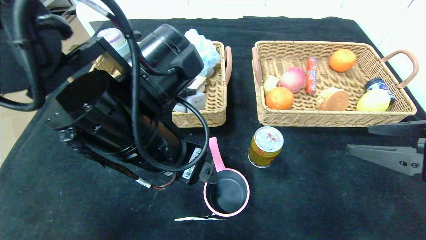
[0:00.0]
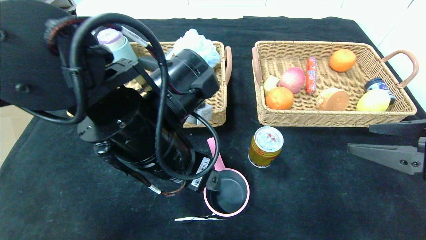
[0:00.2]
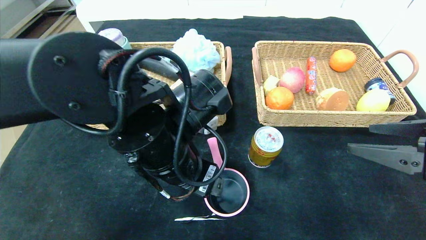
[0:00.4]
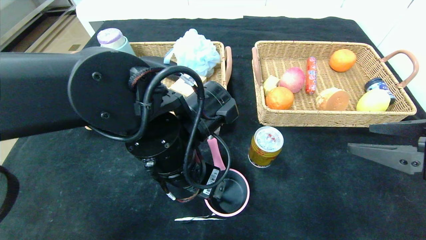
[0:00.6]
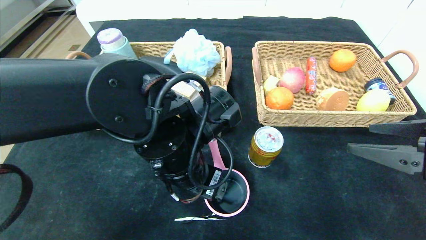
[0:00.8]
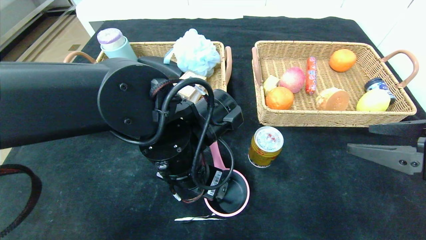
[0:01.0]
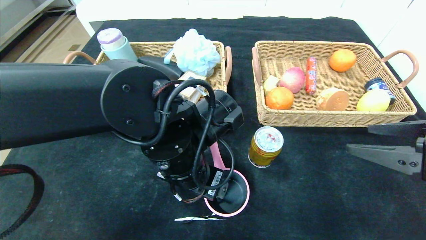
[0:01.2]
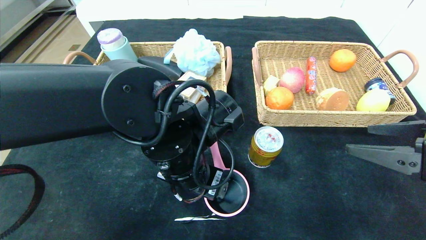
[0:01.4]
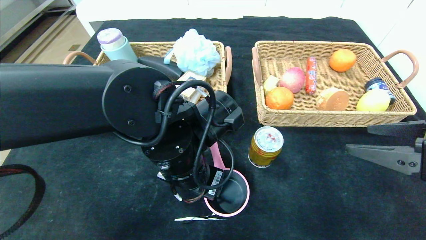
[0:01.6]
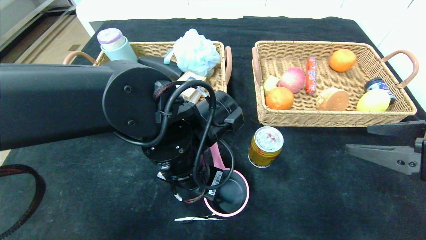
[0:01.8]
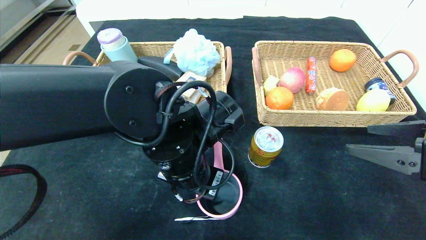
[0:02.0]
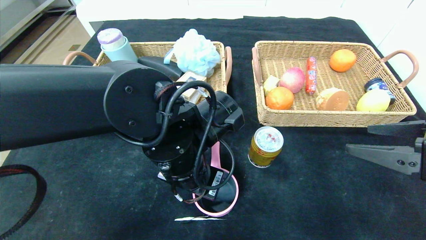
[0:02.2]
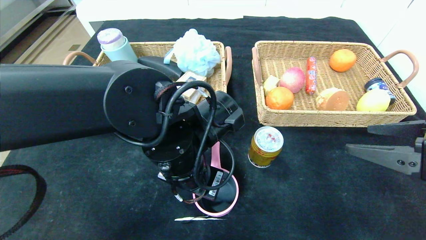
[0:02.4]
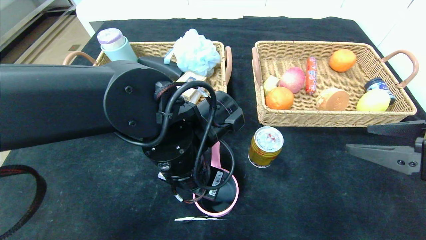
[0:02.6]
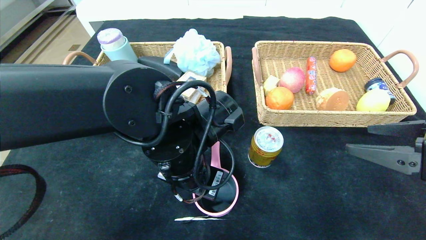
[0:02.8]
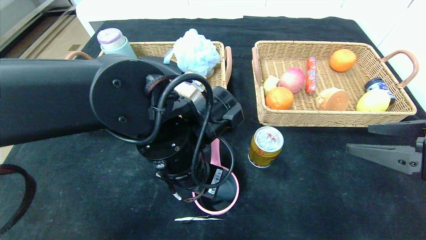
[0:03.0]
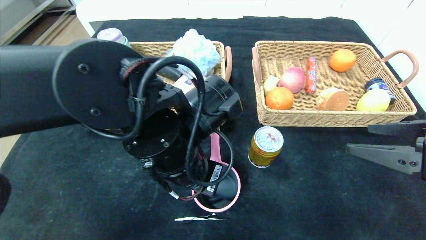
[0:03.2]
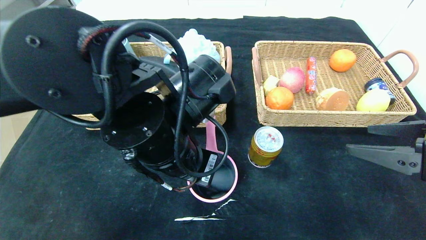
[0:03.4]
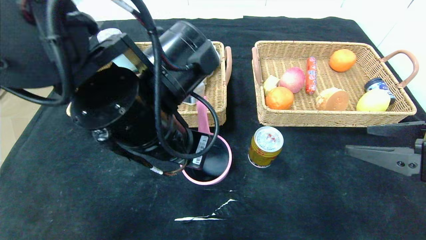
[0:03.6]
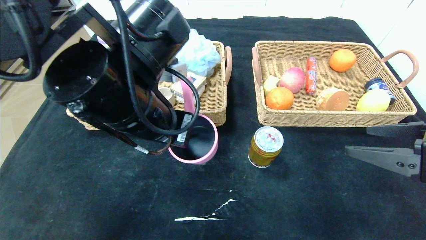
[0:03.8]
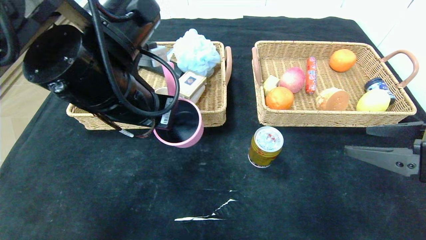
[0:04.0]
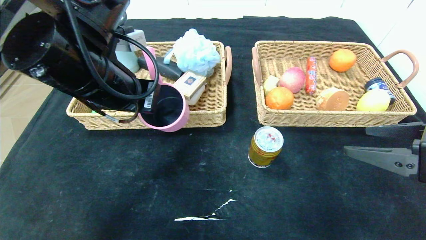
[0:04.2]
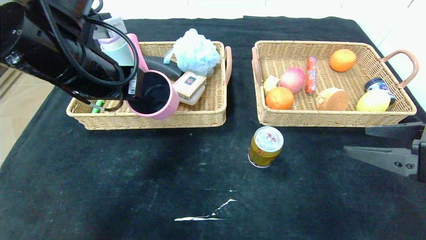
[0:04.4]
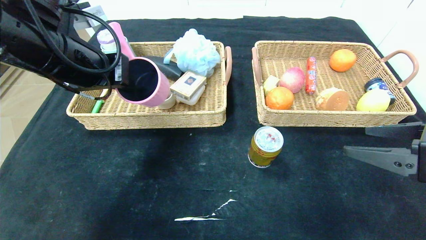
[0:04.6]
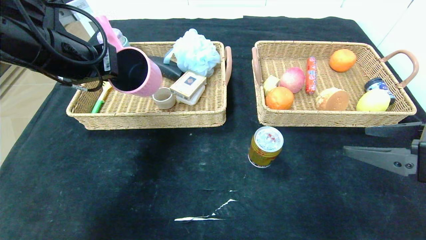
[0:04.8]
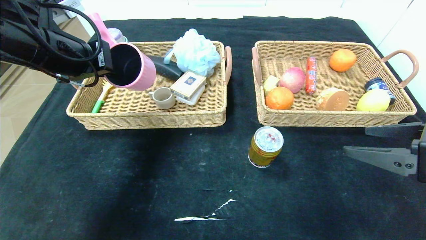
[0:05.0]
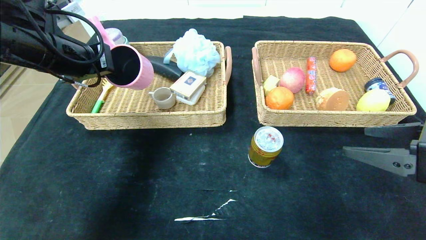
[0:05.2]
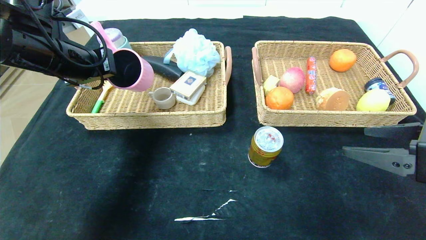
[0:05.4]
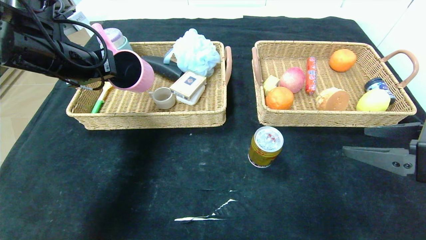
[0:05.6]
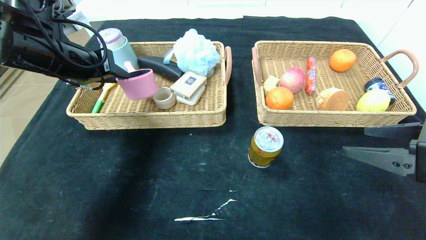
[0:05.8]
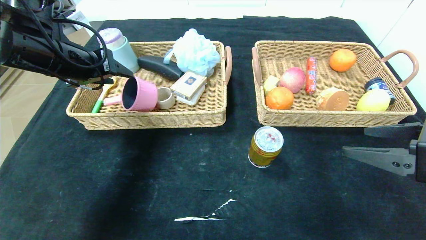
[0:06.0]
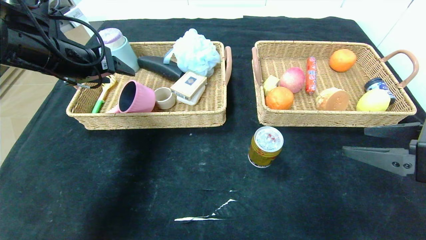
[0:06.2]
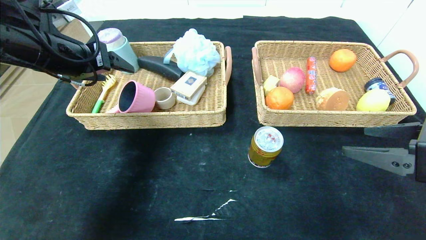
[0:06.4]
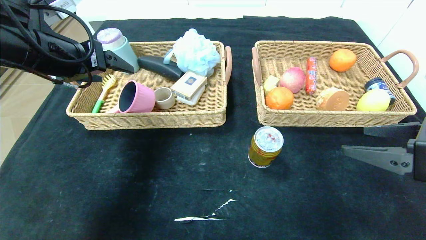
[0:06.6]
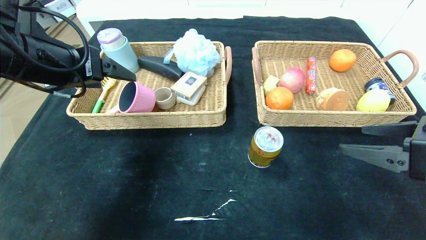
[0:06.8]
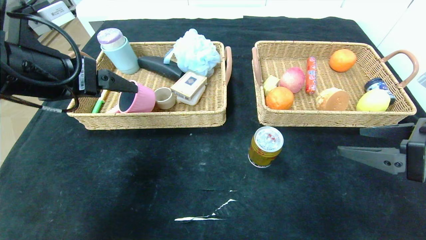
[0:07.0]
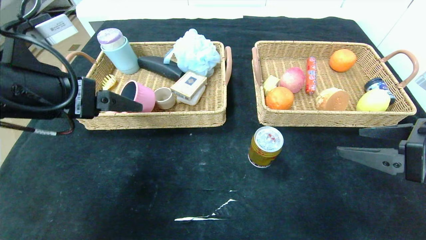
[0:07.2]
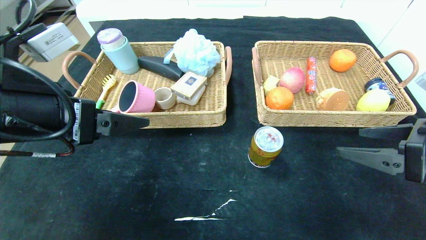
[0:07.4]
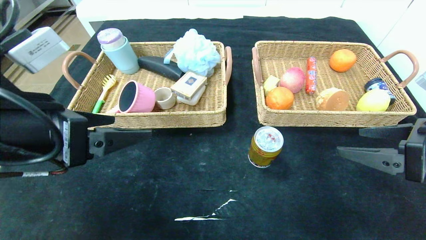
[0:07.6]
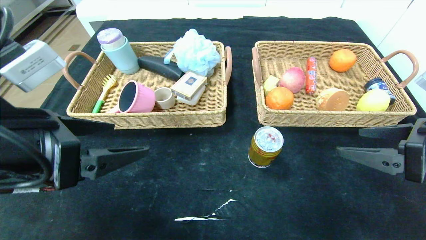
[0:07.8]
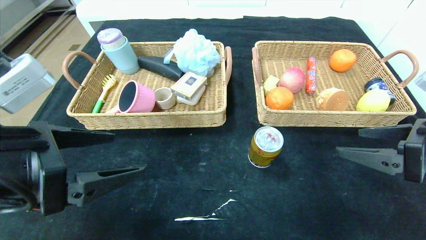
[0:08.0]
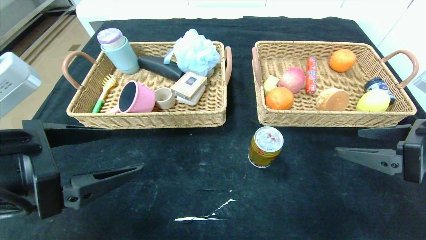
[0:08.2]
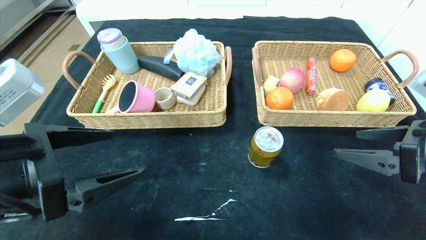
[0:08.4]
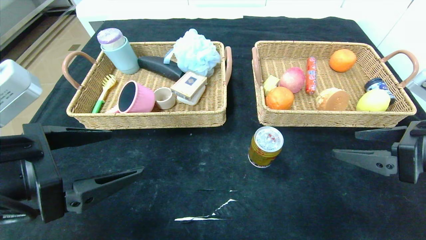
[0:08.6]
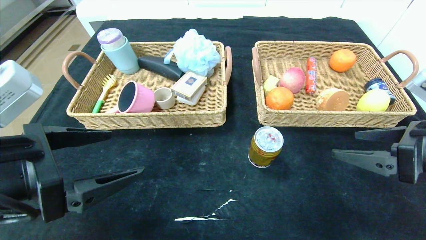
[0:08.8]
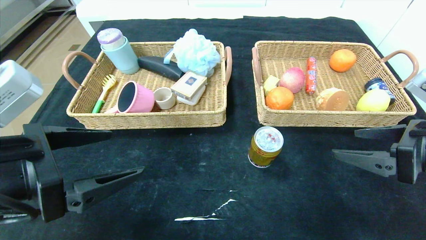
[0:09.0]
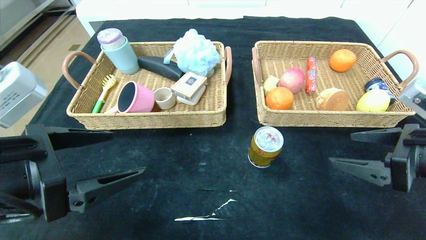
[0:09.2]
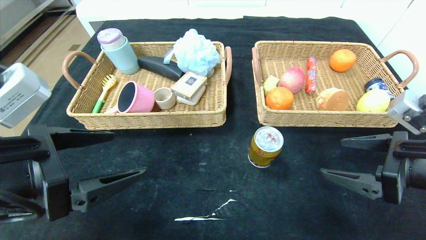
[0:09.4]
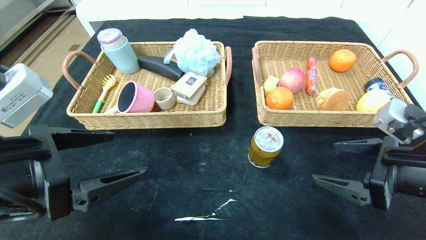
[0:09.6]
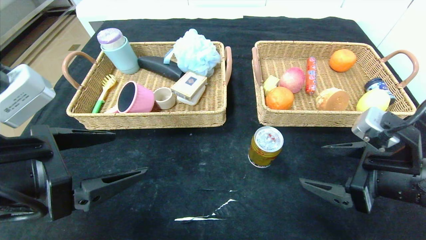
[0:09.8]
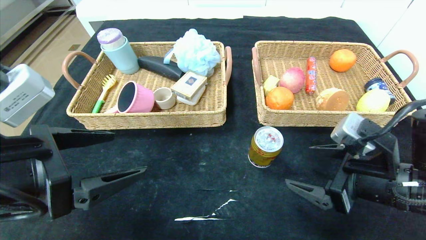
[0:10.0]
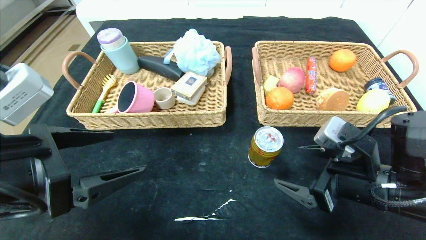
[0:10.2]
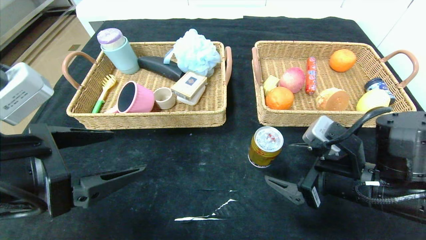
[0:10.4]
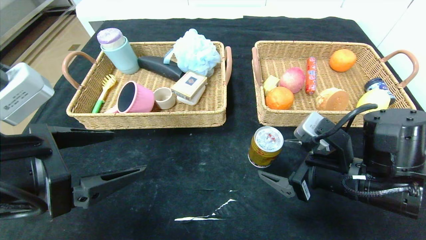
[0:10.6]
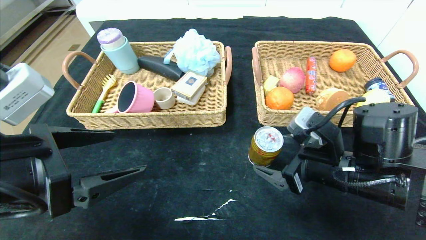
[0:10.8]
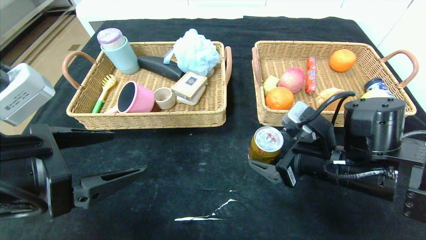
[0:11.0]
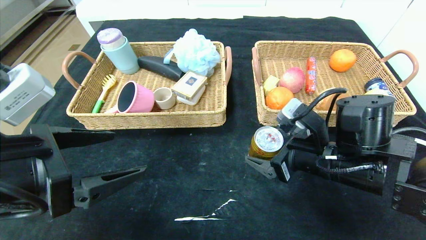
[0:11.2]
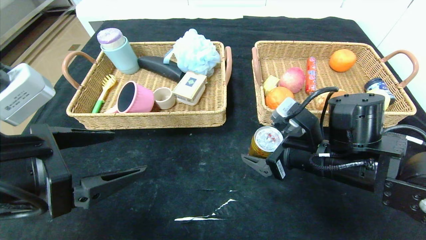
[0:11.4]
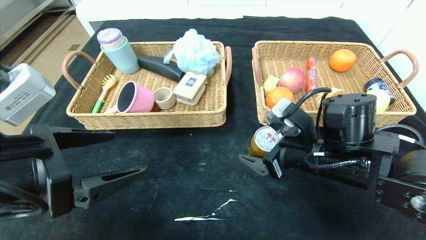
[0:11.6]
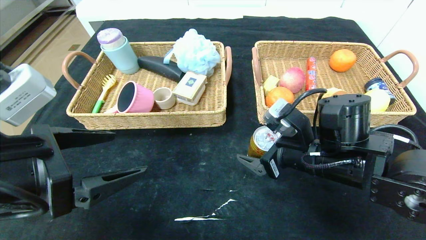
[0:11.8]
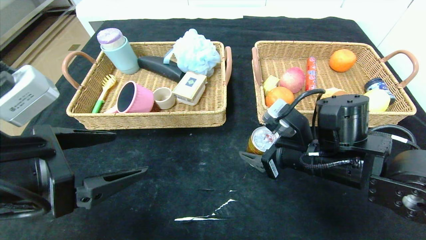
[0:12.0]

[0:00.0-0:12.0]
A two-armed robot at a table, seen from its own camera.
Step, 0:00.0 to 0:06.0: Grasp the pink pot and put it in the left basket.
0:00.0 to 0:01.6: The left gripper travels downward by roughly 5 cm.
0:01.6 to 0:03.0: The left gripper closes.
0:03.0 to 0:04.4: The left gripper is displaced to the left and upward by about 15 cm.
0:04.4 to 0:06.0: The left gripper is displaced to the left and forward by about 10 cm, and opens.
0:06.0 to 0:07.6: The left gripper is displaced backward by approximately 15 cm, and opens up.
0:07.6 to 0:09.0: The grippers stay close to where they were, moving slightly.
0:09.0 to 0:10.4: The right gripper travels to the left and downward by about 10 cm.
0:10.4 to 0:12.0: The right gripper goes roughly 5 cm forward.

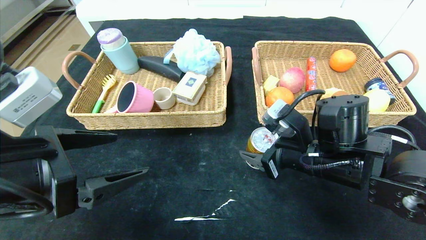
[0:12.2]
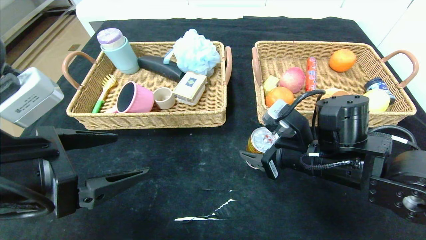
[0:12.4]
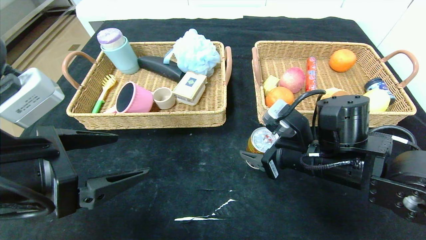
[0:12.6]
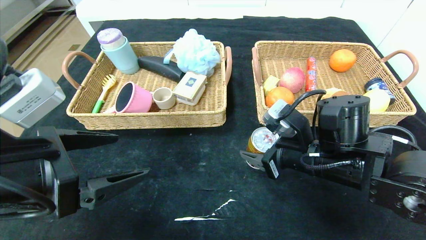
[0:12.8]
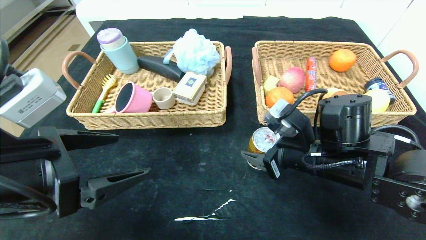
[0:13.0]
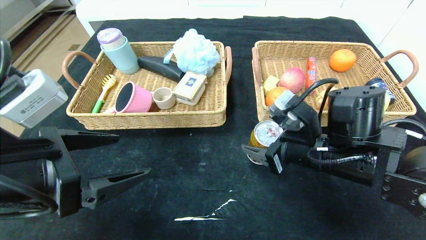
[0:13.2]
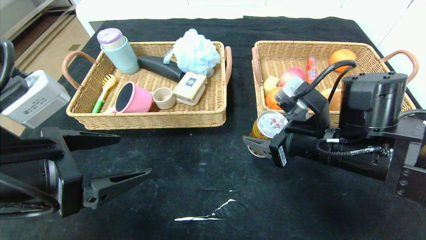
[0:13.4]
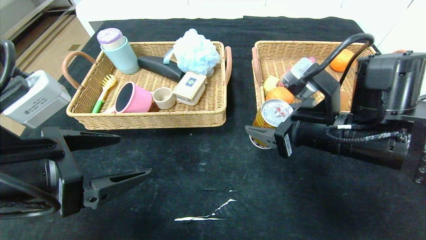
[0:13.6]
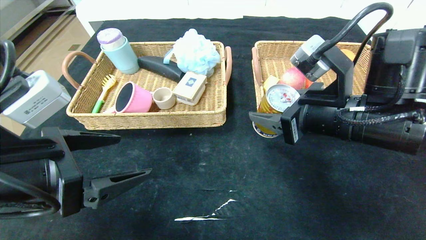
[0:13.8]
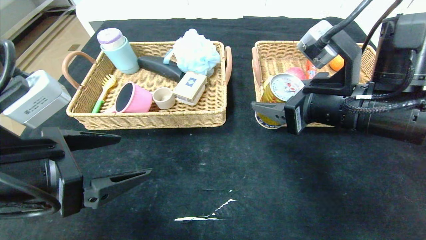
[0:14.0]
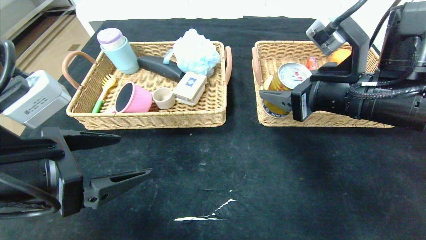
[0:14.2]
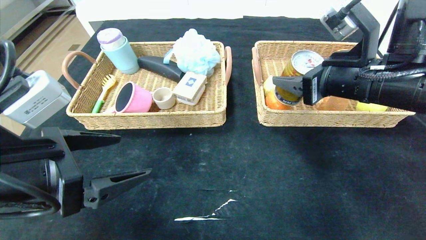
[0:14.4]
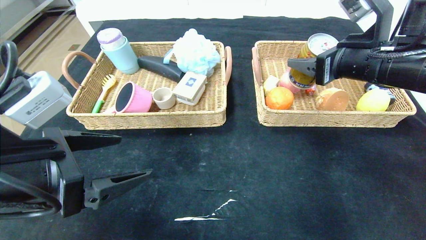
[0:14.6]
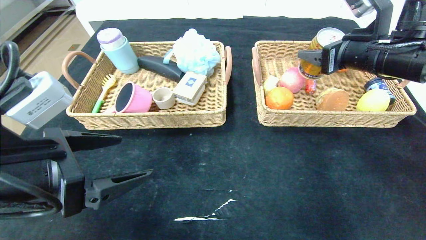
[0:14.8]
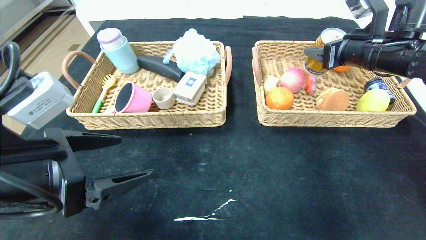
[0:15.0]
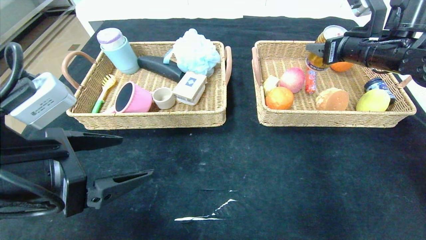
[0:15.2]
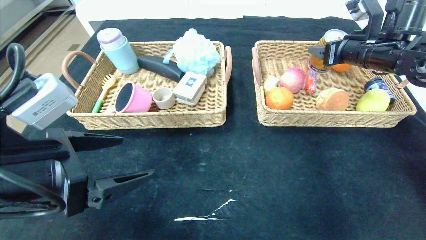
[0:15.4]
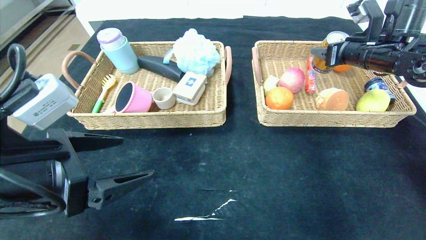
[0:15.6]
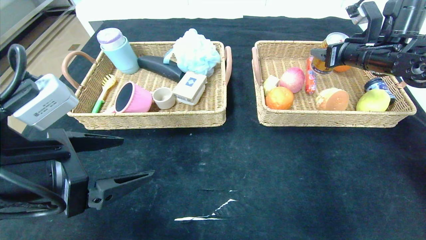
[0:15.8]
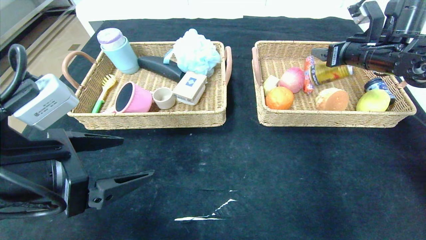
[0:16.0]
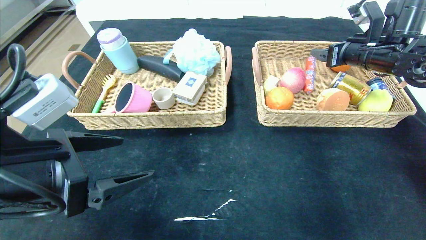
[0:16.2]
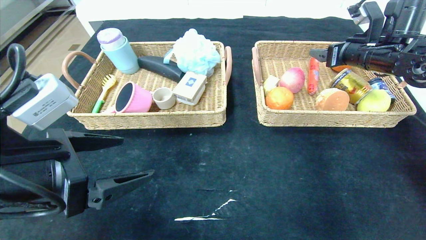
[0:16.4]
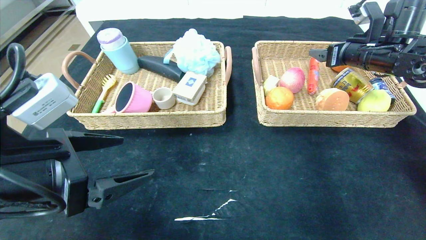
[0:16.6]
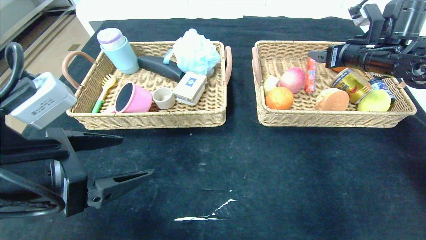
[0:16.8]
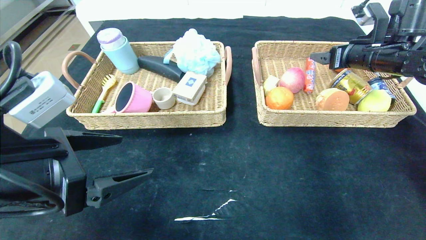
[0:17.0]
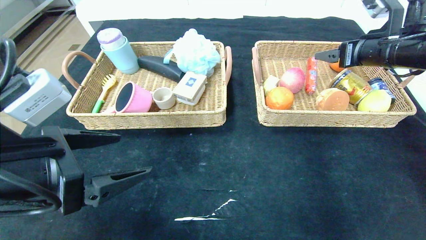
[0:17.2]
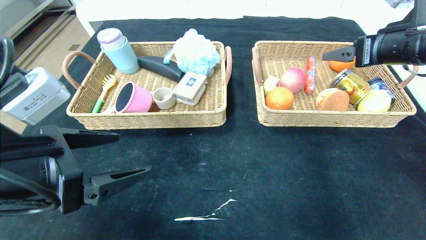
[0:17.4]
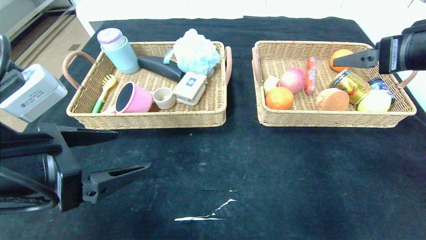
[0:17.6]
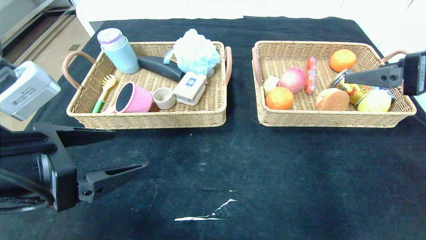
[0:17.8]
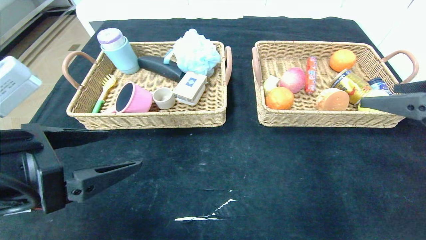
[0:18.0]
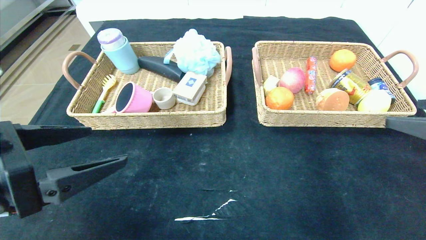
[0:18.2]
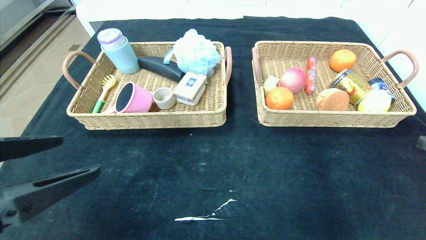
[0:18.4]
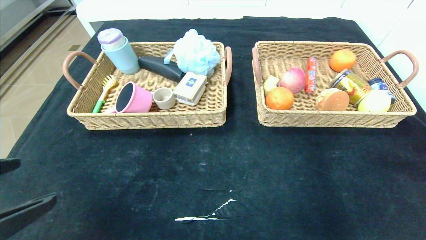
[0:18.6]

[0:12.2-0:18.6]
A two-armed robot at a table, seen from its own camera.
Step, 0:12.2 to 0:16.2: Grasp the Red Bull and put it in the right basket.
0:12.2 to 0:13.8: The right gripper shifts some 10 cm upward.
0:13.8 to 0:15.4: The right gripper goes about 20 cm forward, to the right and upward.
0:15.4 to 0:17.0: There are only small adjustments of the grippers.
0:17.0 to 0:18.6: The left gripper shifts roughly 10 cm backward. The right gripper heads backward, covering about 35 cm.
